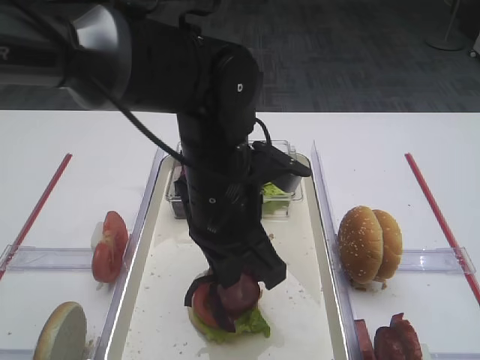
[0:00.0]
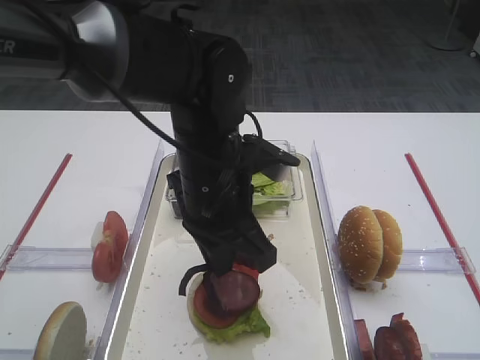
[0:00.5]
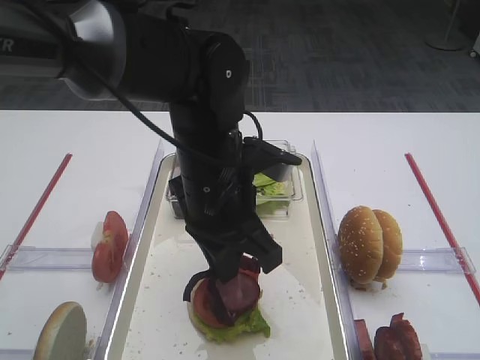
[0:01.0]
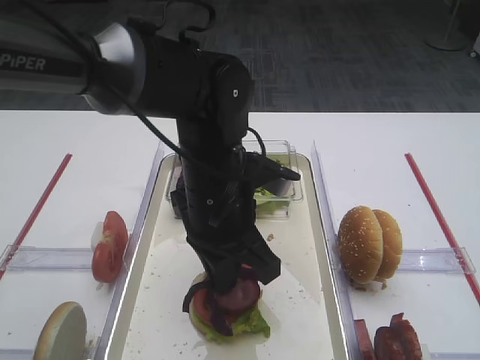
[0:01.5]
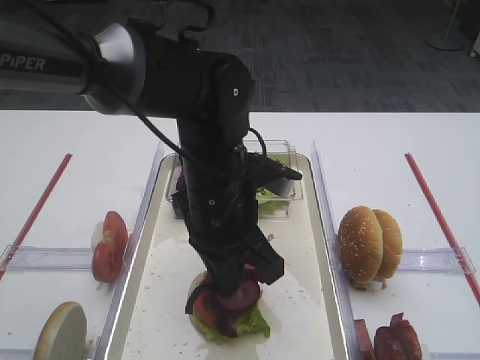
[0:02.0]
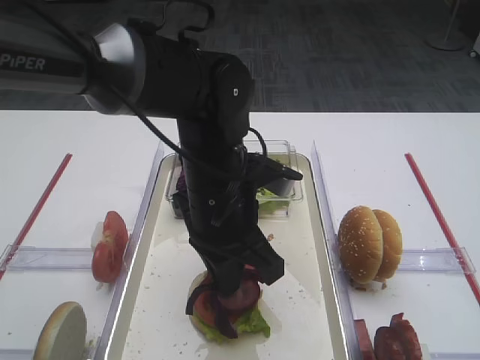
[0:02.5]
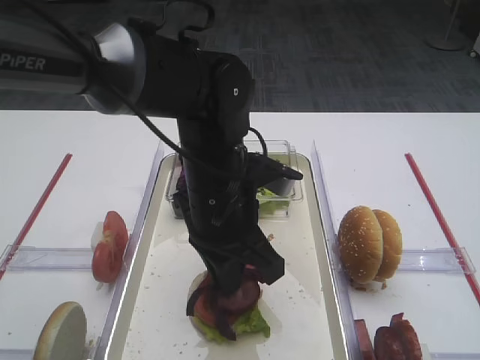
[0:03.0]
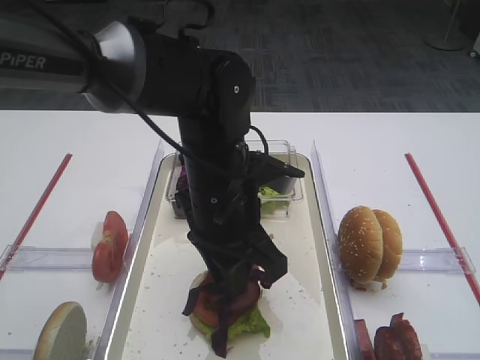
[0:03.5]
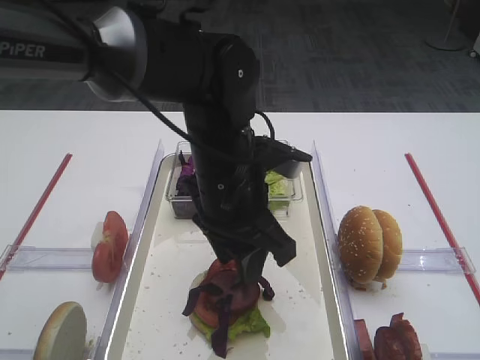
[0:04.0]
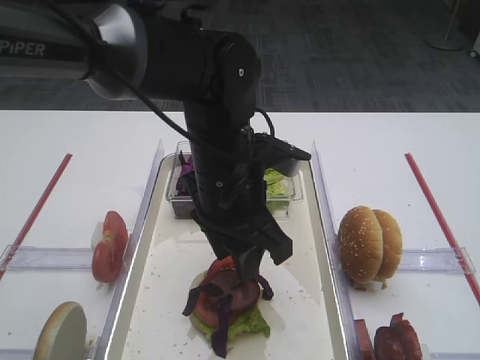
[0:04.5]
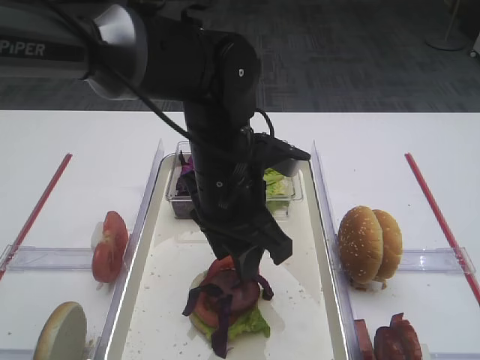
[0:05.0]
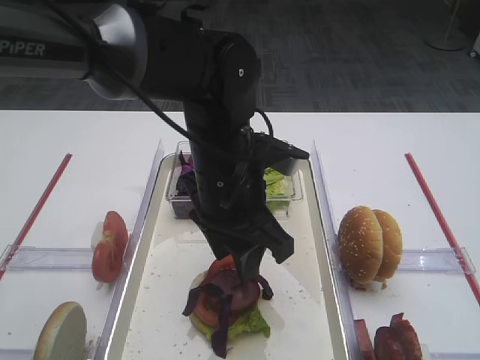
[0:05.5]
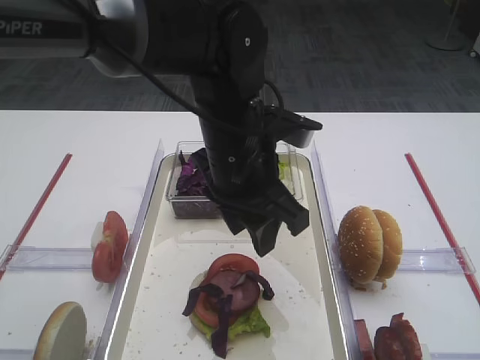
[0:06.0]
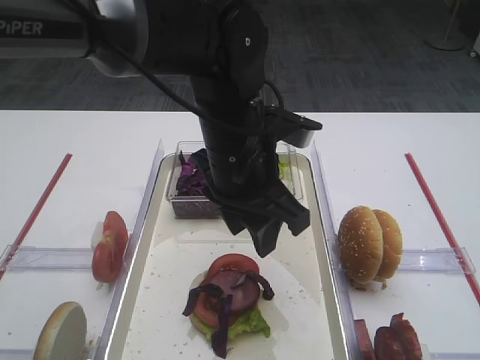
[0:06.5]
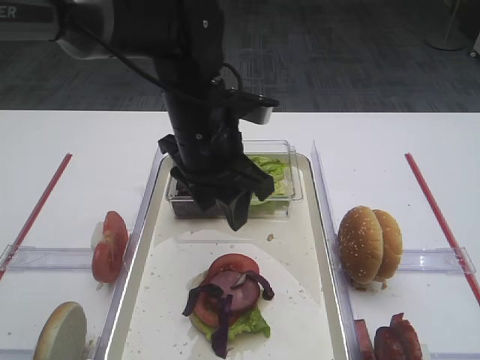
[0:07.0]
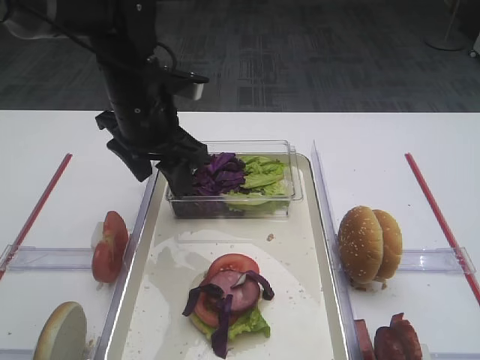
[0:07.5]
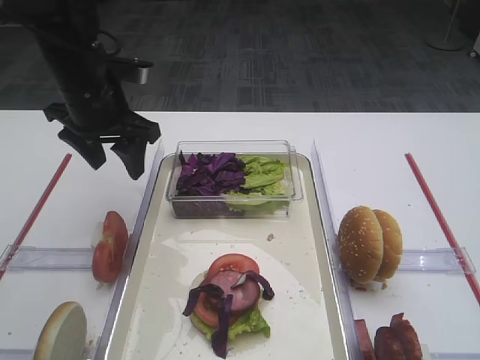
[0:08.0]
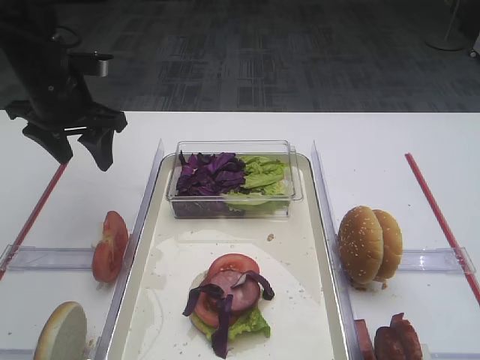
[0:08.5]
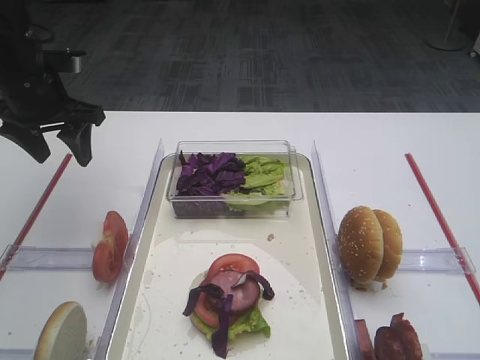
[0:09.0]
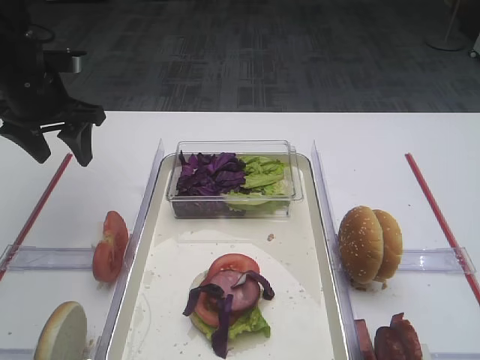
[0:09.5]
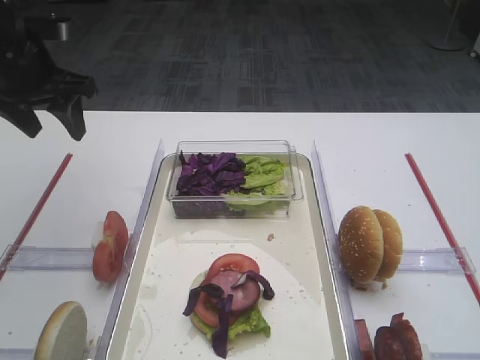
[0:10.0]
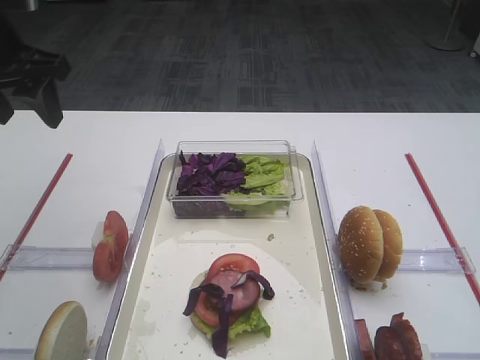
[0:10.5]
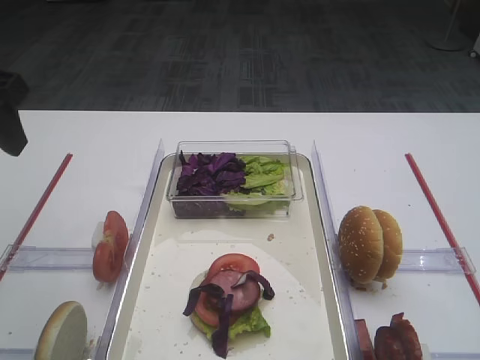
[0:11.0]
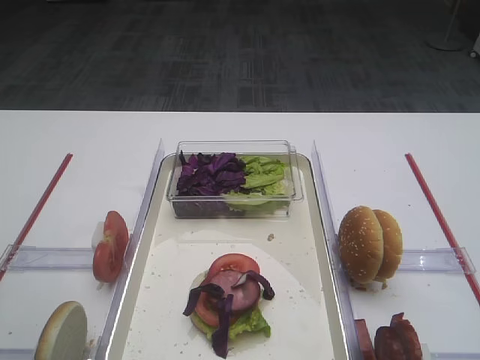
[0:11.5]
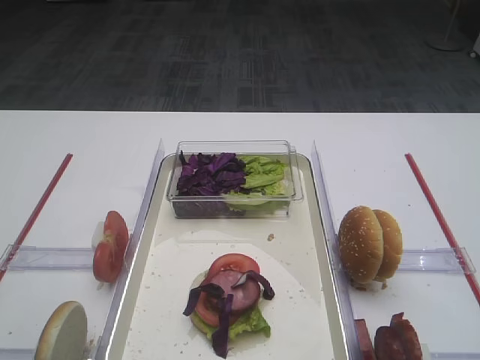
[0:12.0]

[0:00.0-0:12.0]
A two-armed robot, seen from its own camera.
Step, 0:00.0 to 0:06.5: Place the purple cabbage on the cutlet with the left gripper.
0:00.0 to 0:02.0: The grippers make only small movements.
0:02.0 to 0:04.0: The left gripper opens its fingers.
0:04.0 to 0:06.0: The grippers stay close to where they were, moving slightly.
0:06.0 to 0:08.0: The left gripper heads to the left and forward, covering about 20 cm.
0:08.0 to 0:10.0: The left gripper is displaced to the left by roughly 10 cm.
0:10.0 to 0:12.0: The left gripper heads backward, covering roughly 30 cm.

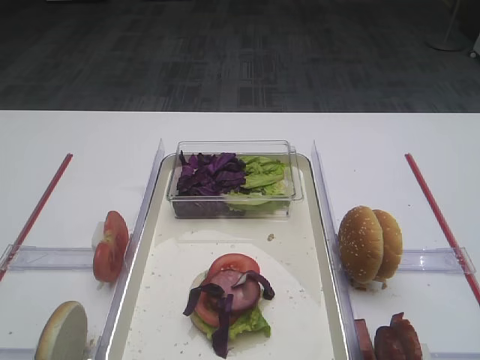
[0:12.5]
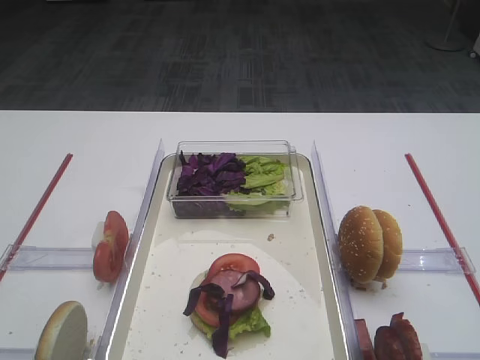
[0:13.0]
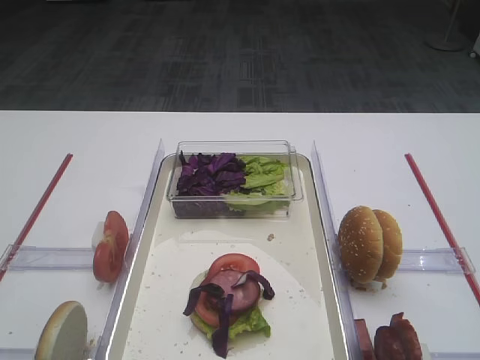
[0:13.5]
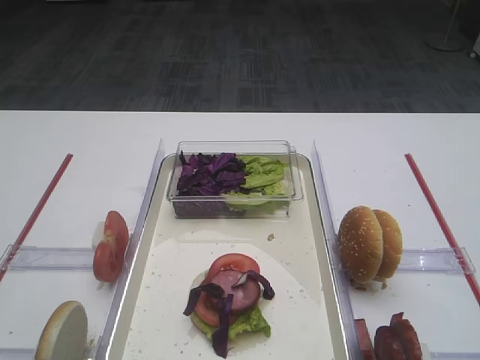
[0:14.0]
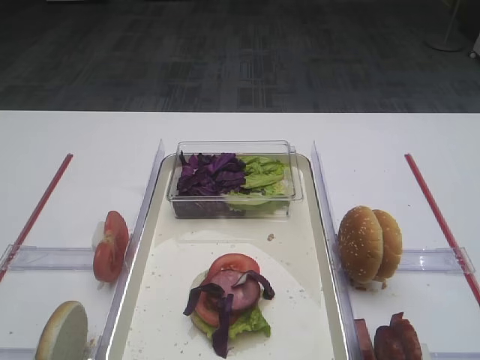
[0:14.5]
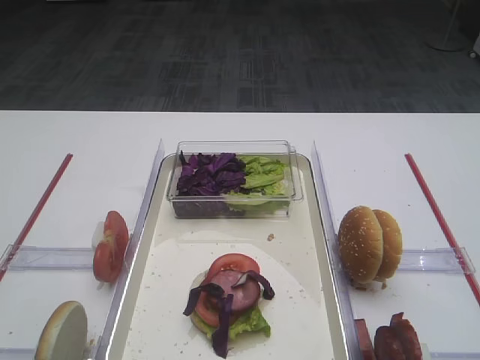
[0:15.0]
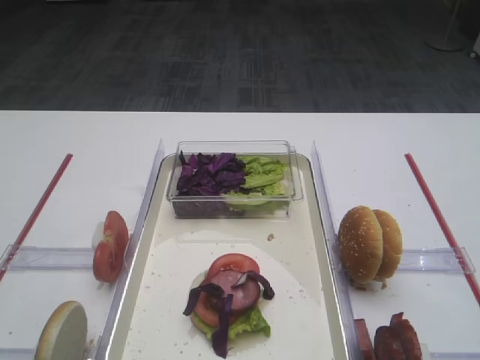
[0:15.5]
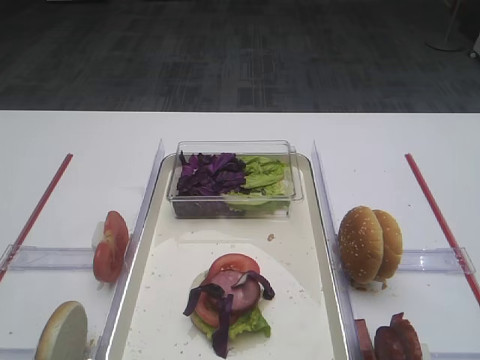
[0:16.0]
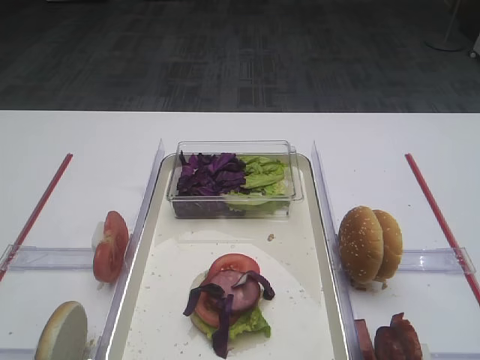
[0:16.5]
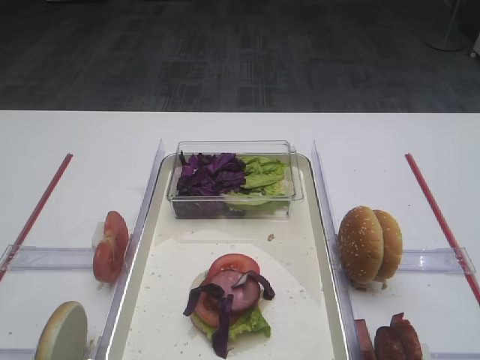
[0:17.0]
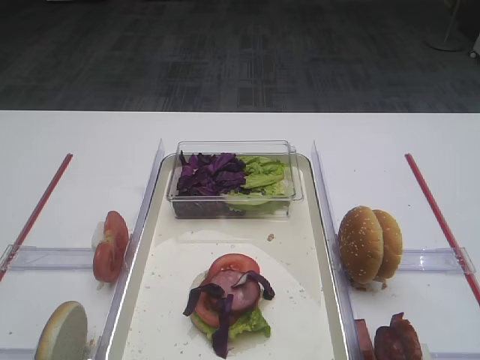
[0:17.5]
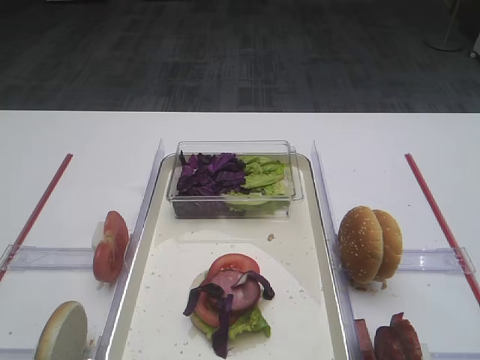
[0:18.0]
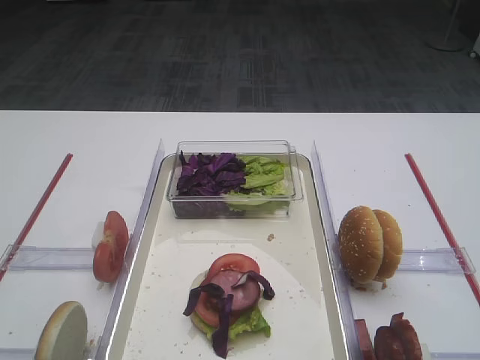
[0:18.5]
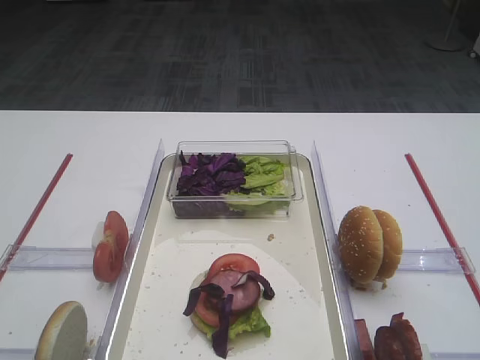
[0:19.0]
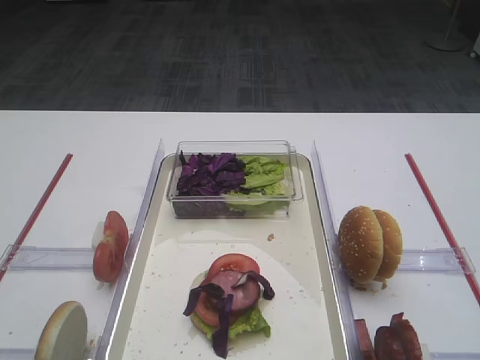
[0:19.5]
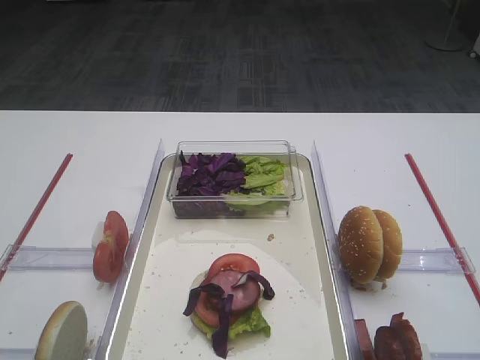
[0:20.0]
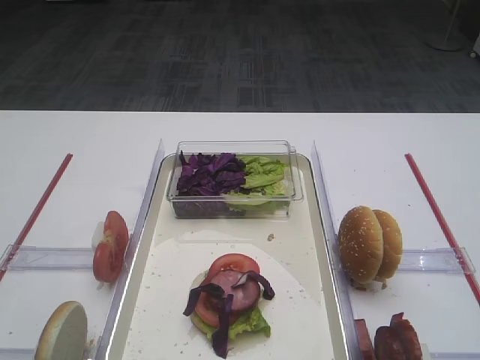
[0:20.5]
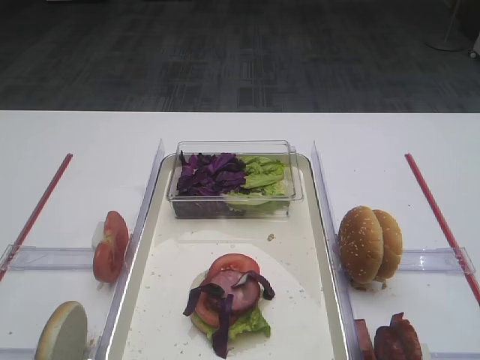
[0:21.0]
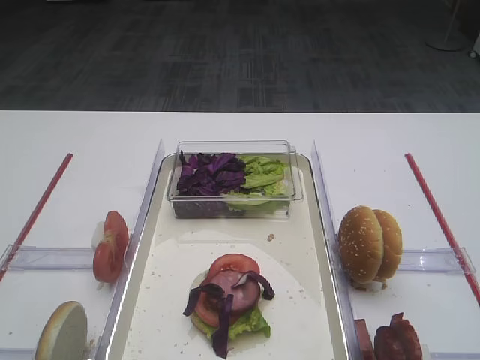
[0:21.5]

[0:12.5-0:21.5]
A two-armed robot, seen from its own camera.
0:14.5 to 0:21.5: Neither gripper changes place.

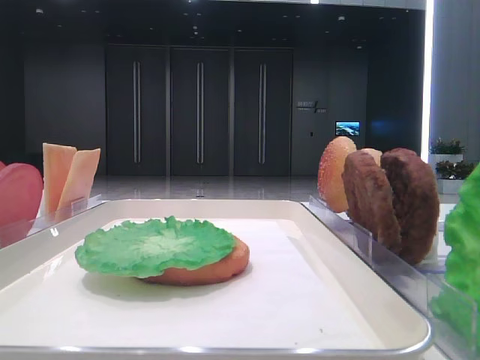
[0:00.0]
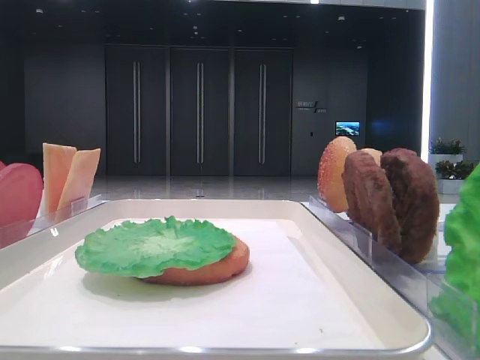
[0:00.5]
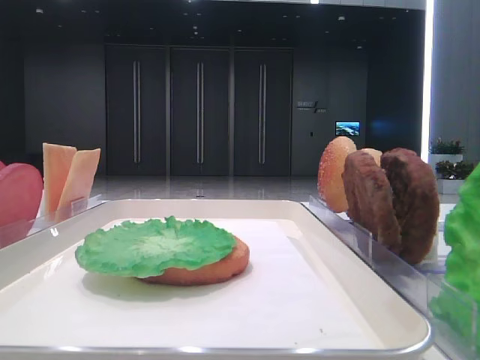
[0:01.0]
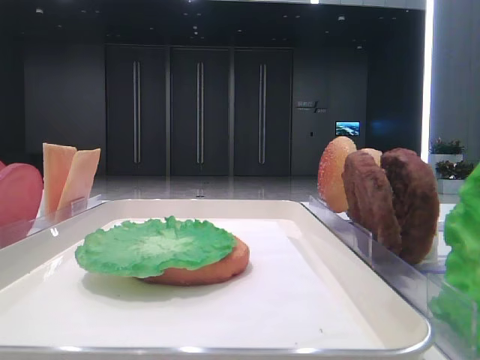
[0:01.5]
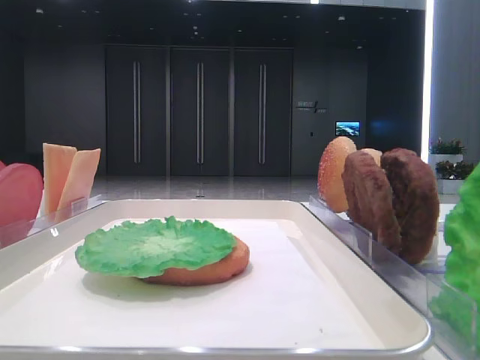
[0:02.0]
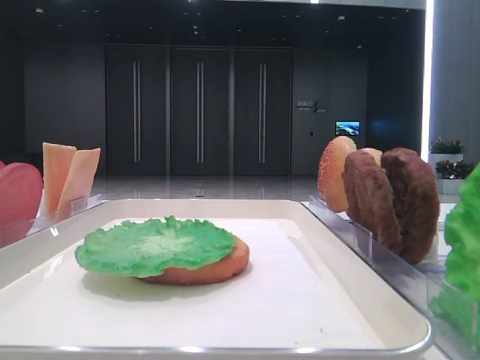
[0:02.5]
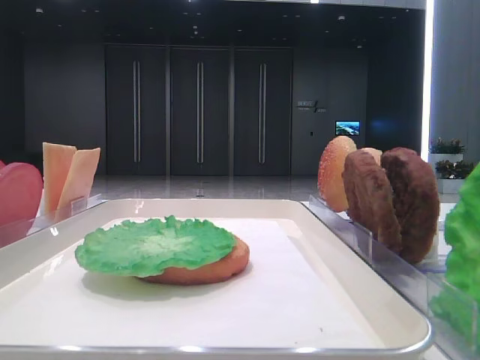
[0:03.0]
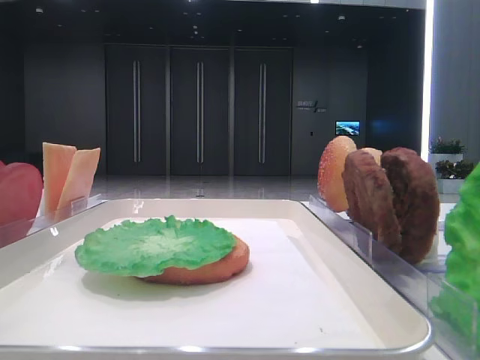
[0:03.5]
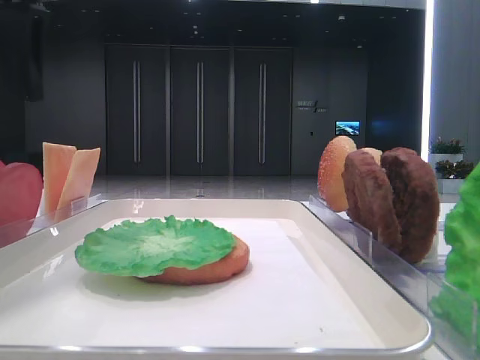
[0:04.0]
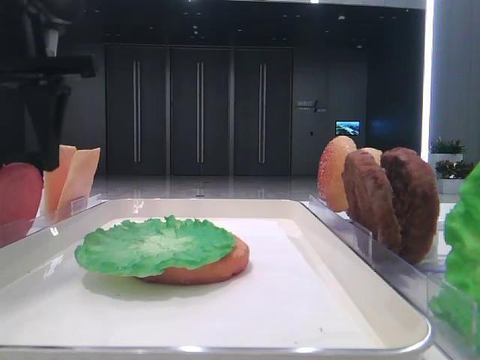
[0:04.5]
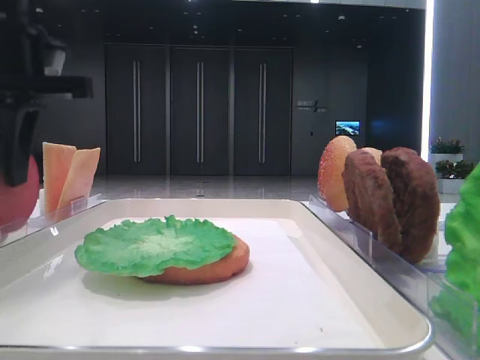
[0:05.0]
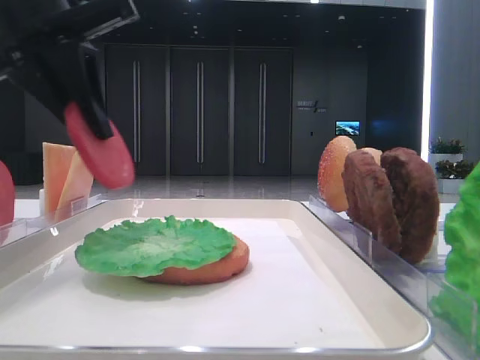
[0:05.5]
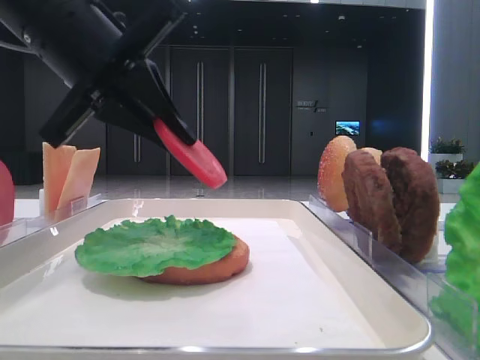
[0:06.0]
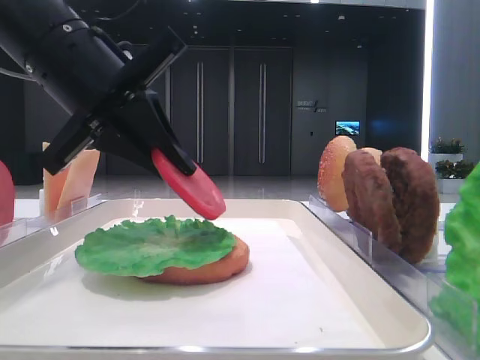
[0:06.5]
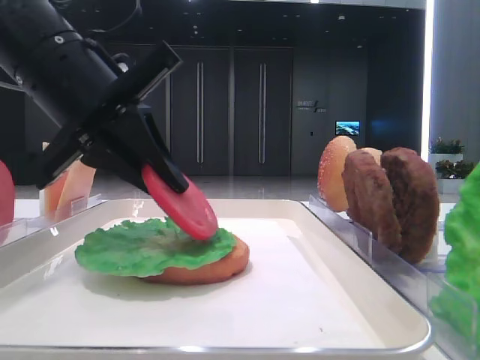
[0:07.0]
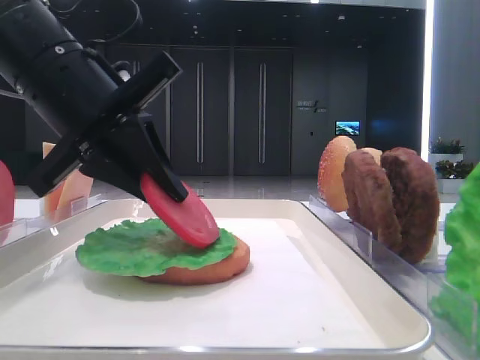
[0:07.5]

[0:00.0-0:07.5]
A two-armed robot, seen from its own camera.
Step, 0:00.0 to 0:04.5: Pick up the tomato slice with the left hand.
0:02.0 to 0:04.0: The left gripper travels forward and to the right by roughly 30 cm.
0:04.0 to 0:05.5: The left gripper changes place by roughly 5 cm, and closes up.
0:05.5 to 0:07.5: The left gripper travels downward by approximately 5 cm.
